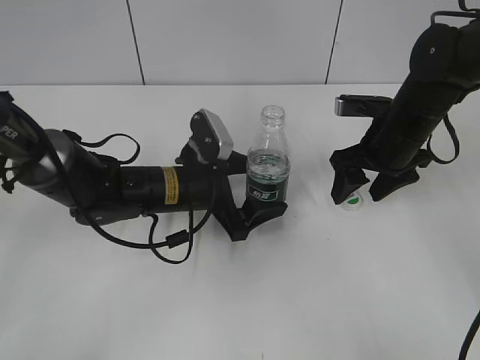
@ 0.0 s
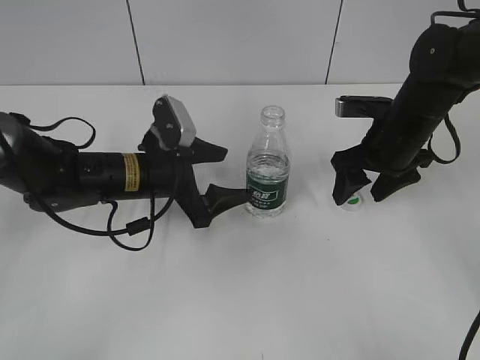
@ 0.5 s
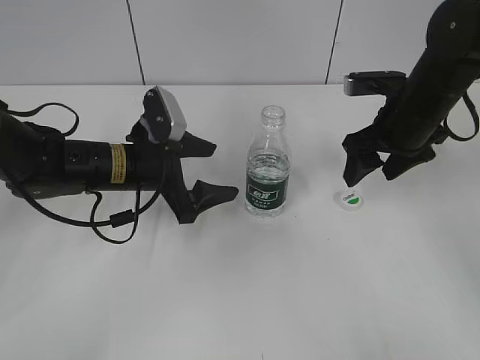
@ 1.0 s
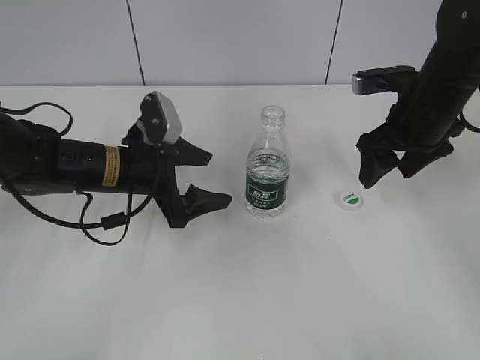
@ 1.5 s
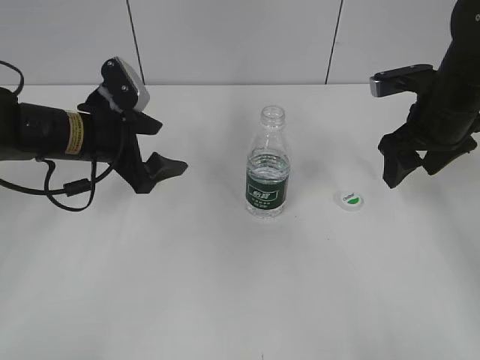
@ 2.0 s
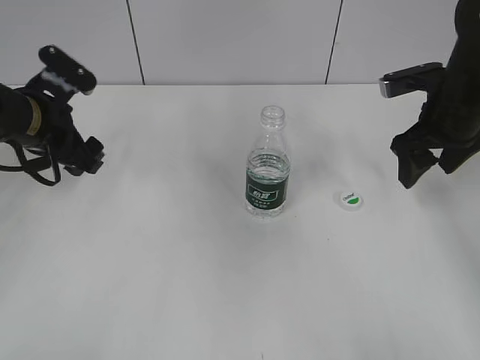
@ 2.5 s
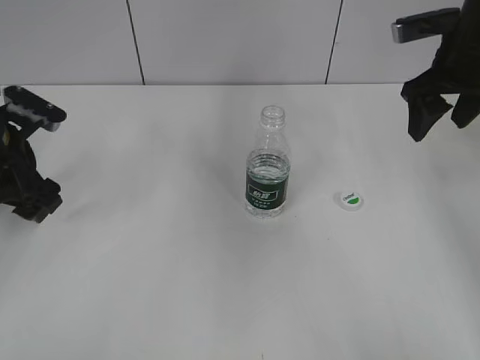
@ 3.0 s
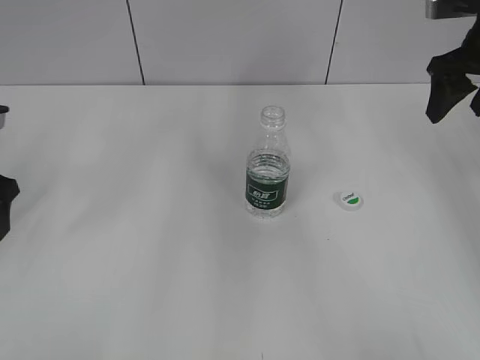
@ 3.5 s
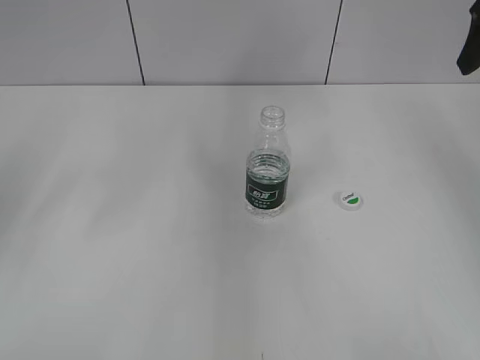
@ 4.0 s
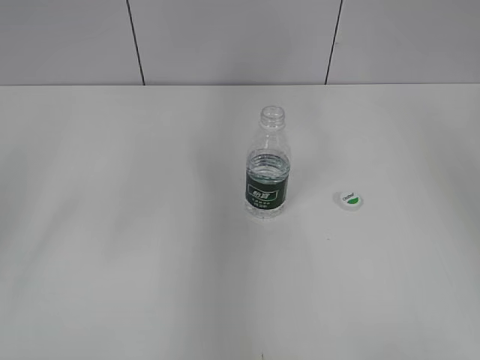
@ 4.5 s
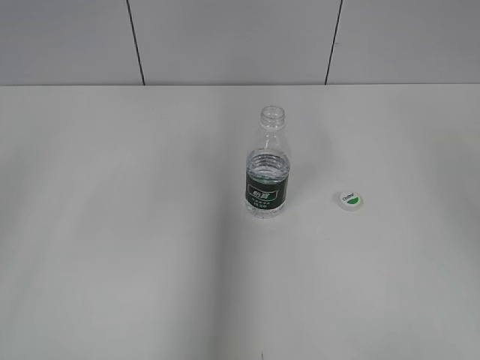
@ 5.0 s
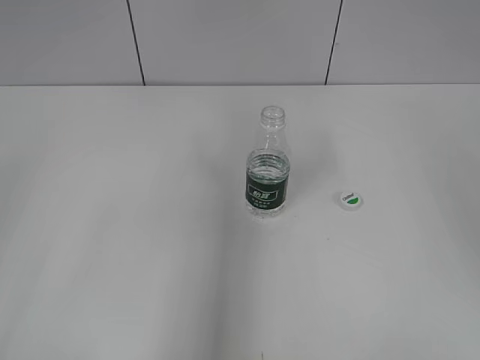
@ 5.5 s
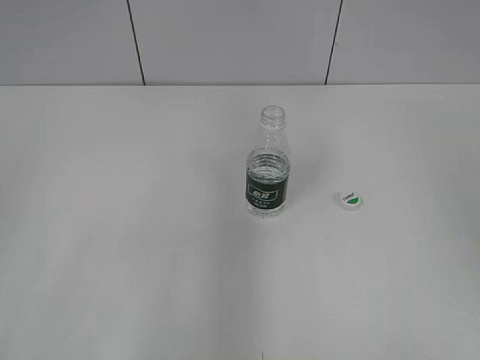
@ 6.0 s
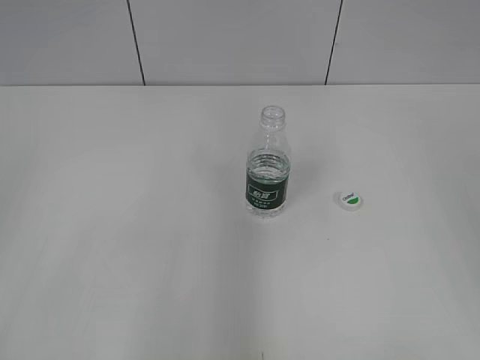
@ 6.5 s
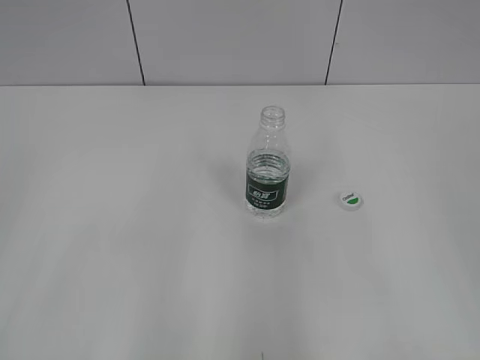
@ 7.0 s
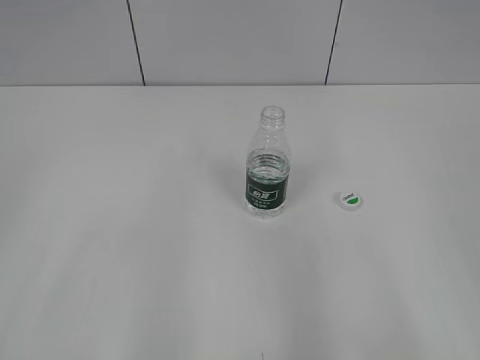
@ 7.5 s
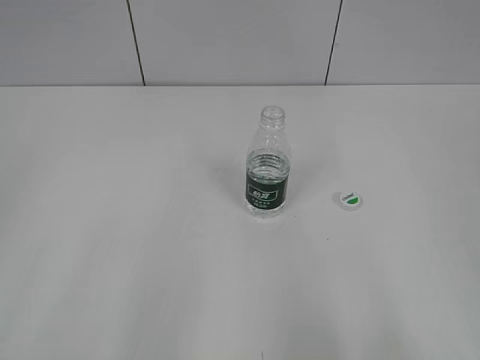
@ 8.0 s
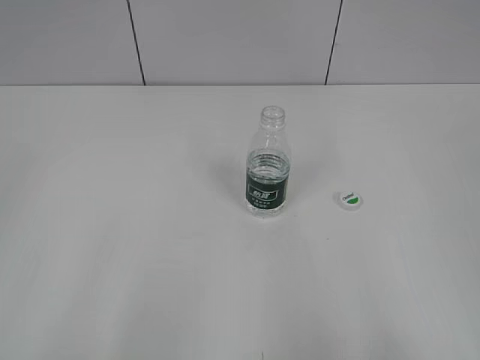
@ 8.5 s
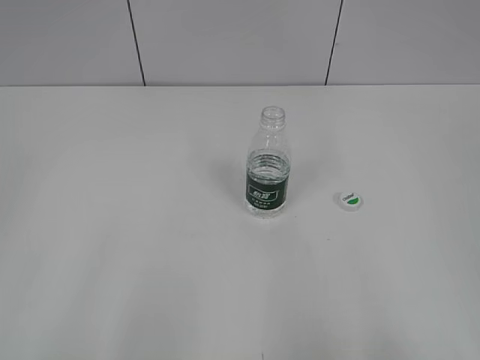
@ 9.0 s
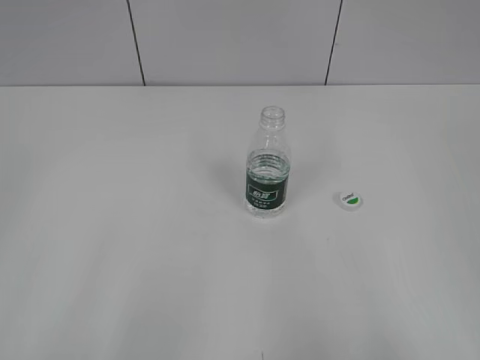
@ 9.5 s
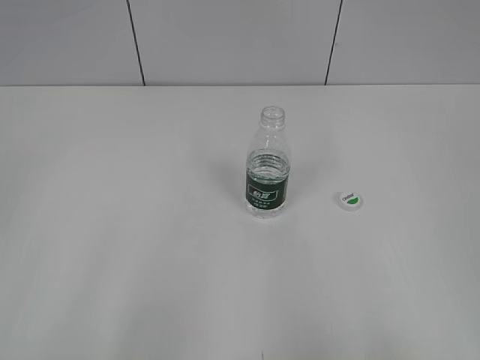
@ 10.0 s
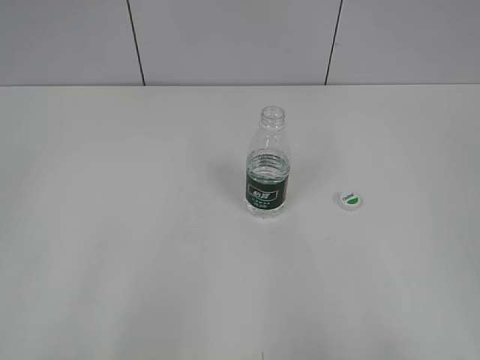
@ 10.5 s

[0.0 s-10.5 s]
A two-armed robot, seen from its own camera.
0.0 to 2.0 s: The left gripper goes some 15 cm to the left and upward; the right gripper moves roughly 5 cm.
2.0 to 4.0 s: The left gripper travels to the left, upward and backward by some 20 cm; the right gripper is displaced upward and to the right by about 15 cm.
6.5 to 8.5 s: The left gripper moves backward, approximately 5 cm; the right gripper heads backward and downward, covering about 15 cm.
8.5 to 10.5 s: Neither gripper changes place.

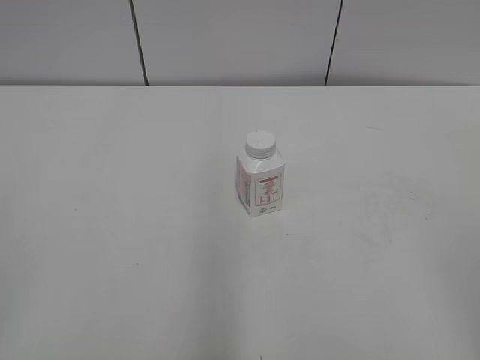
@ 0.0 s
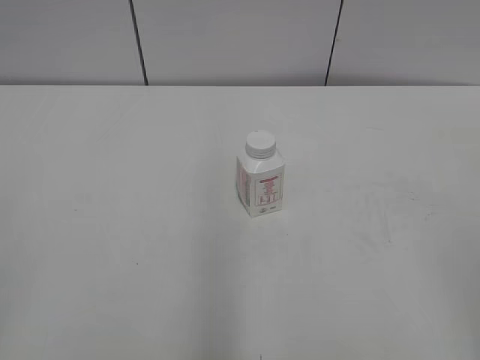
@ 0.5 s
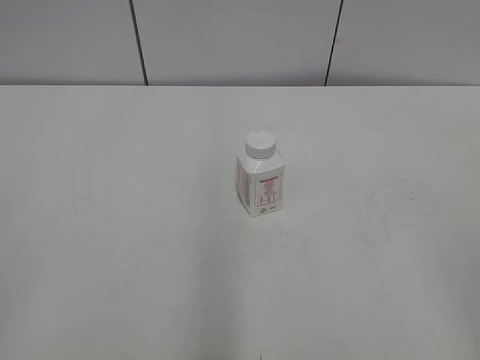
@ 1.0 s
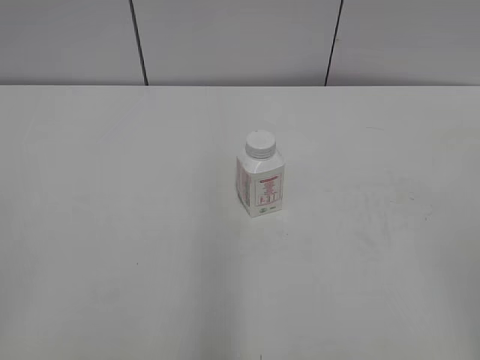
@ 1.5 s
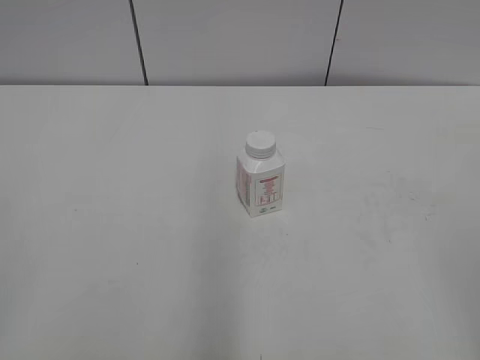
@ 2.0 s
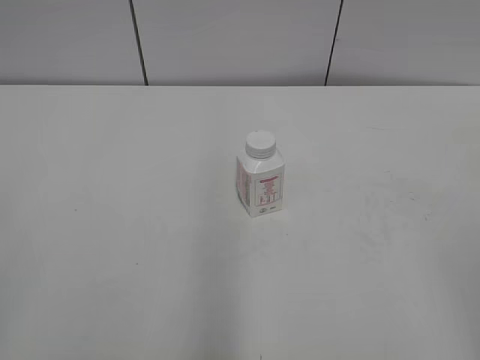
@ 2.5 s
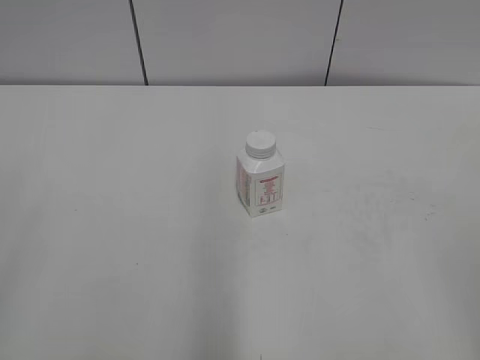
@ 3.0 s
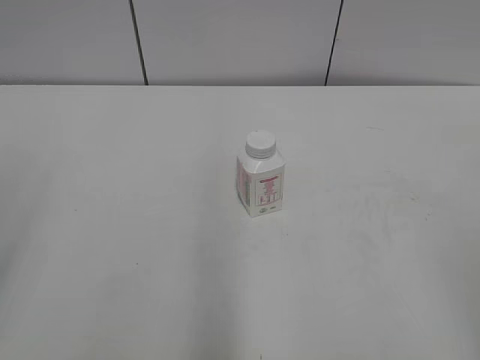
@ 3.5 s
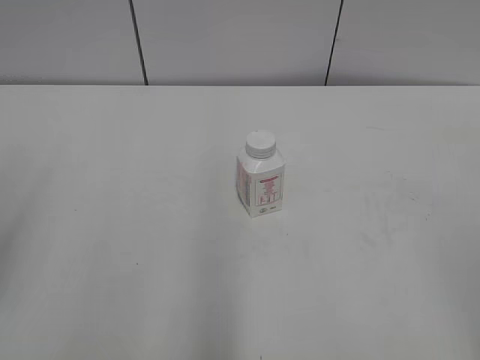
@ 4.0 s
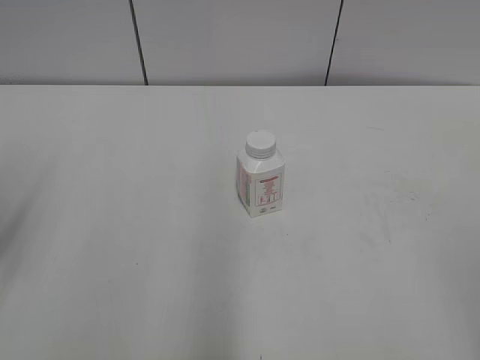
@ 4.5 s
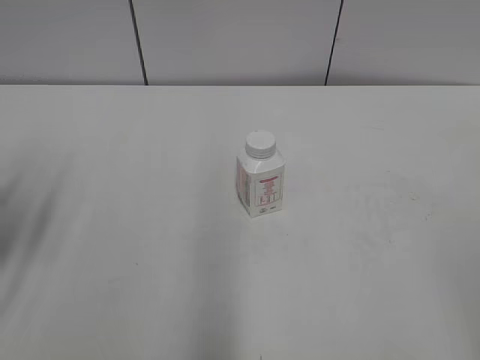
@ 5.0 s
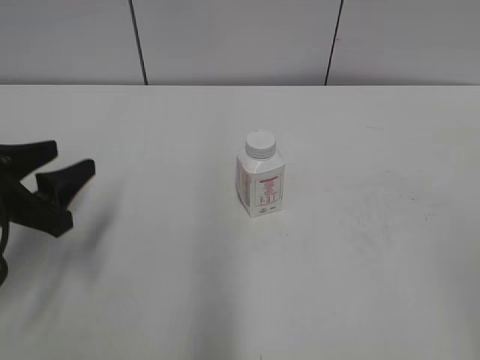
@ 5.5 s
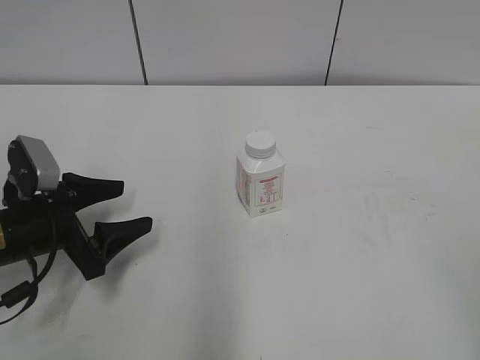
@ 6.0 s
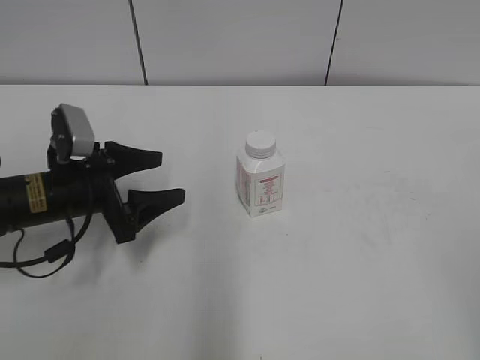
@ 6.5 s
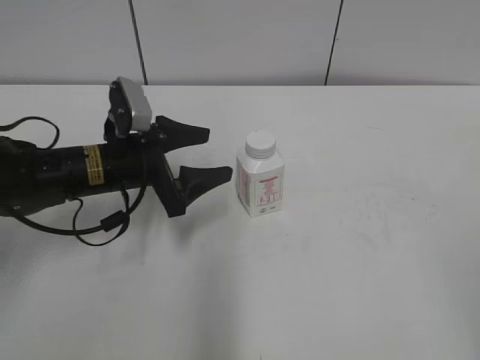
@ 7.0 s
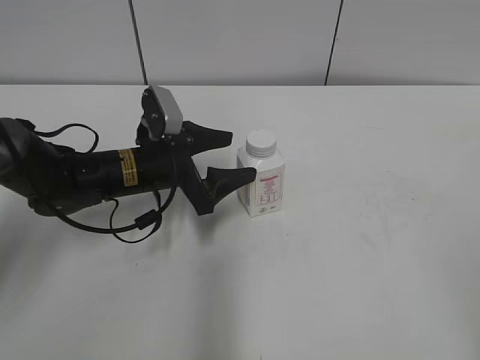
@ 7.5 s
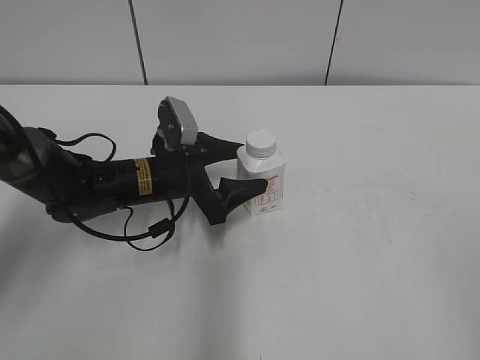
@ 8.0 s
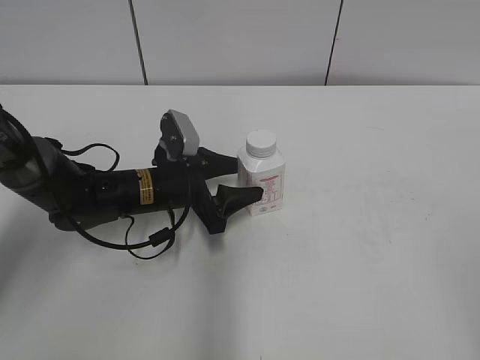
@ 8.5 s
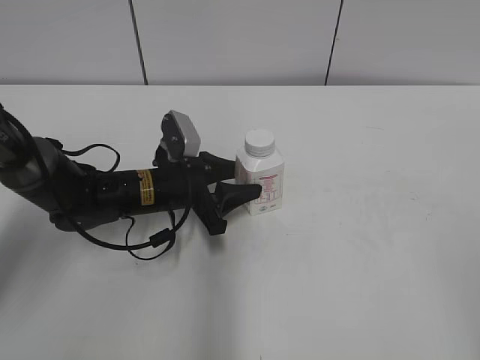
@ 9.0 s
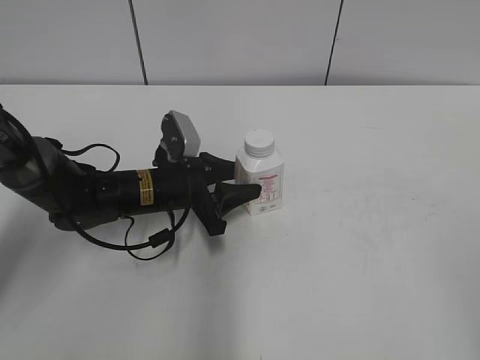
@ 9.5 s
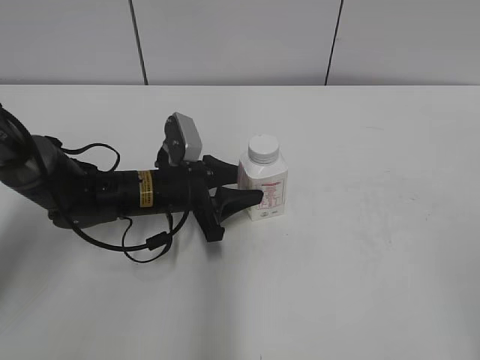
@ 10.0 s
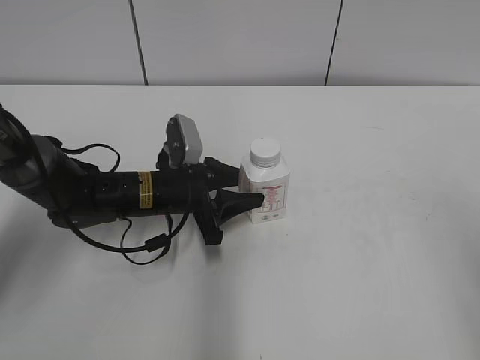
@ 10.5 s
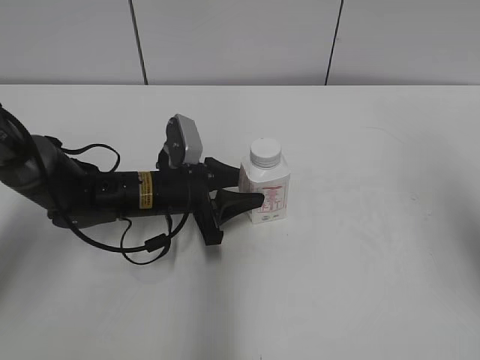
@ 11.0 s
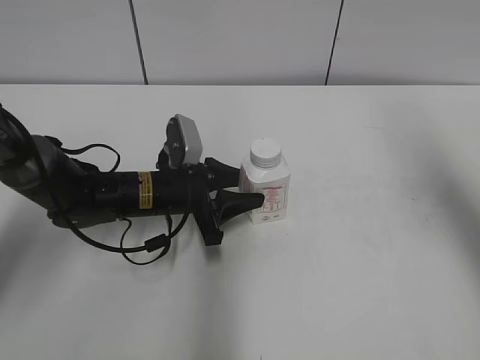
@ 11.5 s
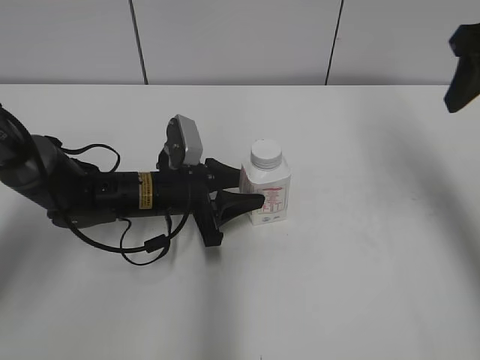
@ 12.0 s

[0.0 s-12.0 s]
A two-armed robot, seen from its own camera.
Step, 0.0 to 10.0 s: Grasp the bottle and move it to the center of the table with the left gripper.
4.0 to 6.0 s: The left gripper moves downward, forward and to the right, some 25 cm, and opens up.
6.0 to 8.0 s: The left gripper heads to the right and forward, covering about 15 cm.
8.0 to 10.0 s: The left gripper closes its fingers.
10.0 to 12.0 s: The right gripper shifts roughly 35 cm forward, and closes.

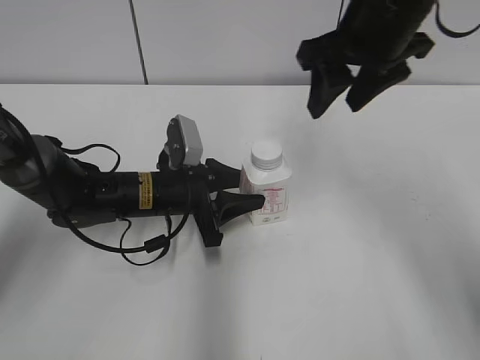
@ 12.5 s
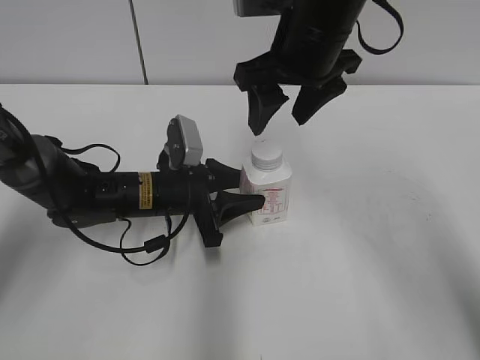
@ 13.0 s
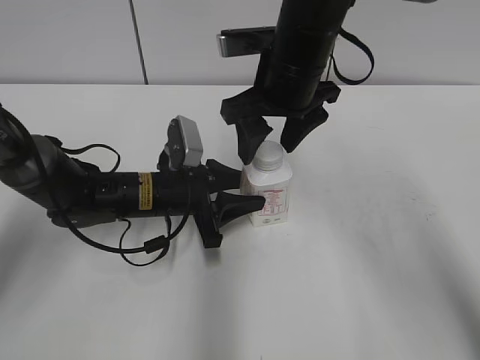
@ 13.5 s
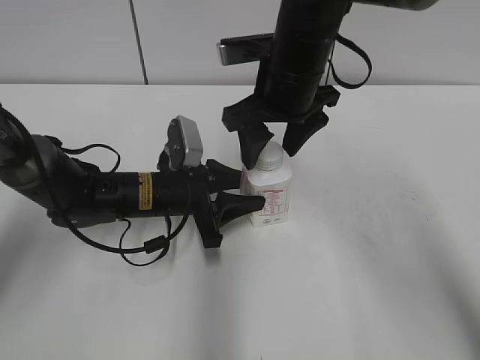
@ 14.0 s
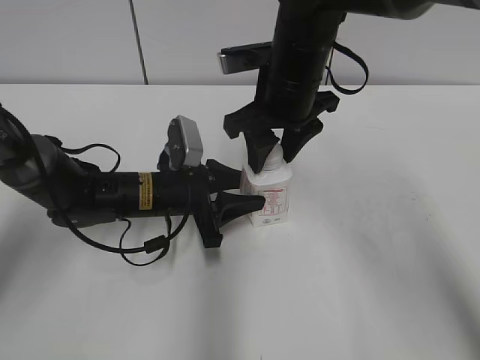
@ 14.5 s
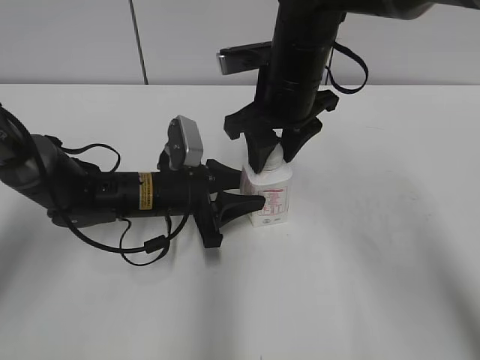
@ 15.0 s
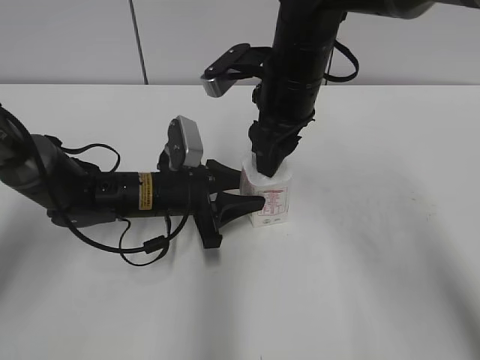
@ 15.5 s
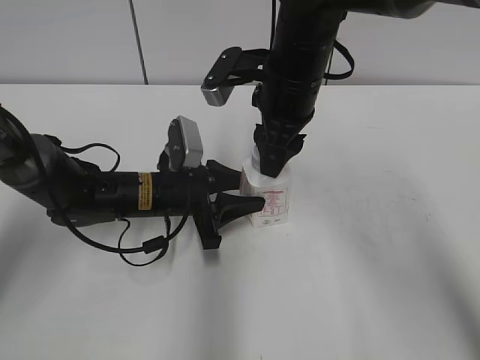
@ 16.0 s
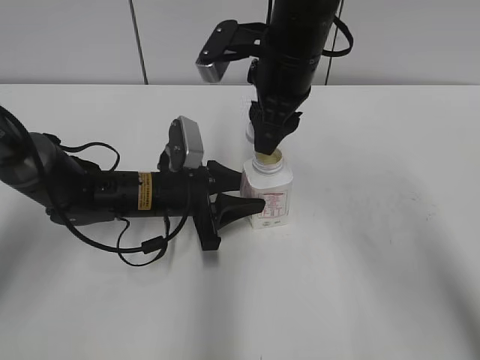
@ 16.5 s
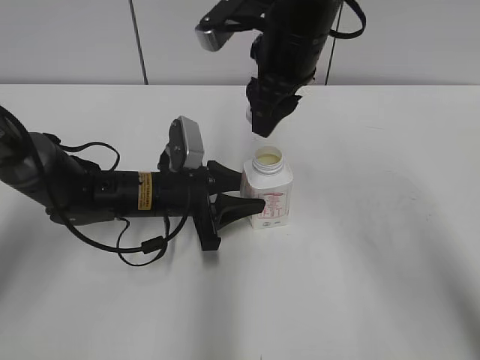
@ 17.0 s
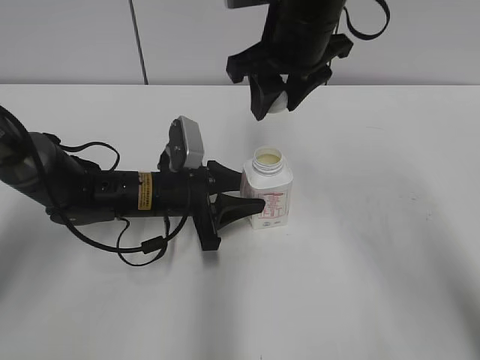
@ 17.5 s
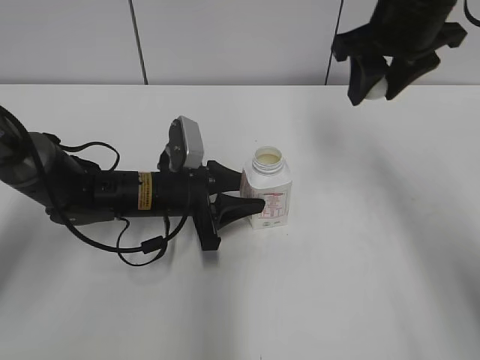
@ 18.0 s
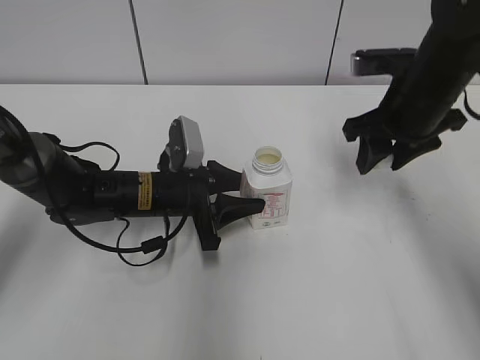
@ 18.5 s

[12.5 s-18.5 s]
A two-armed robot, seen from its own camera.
Step, 12.5 to 16.5 s: Unscrew the bottle cap with the right gripper while holding the bottle with the left gripper.
12.5 to 14.5 s: The right gripper shifts some 10 cm downward and to the left, and opens, then closes again.
16.5 to 18.5 s: The right gripper shifts about 15 cm to the right.
